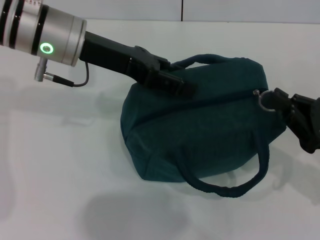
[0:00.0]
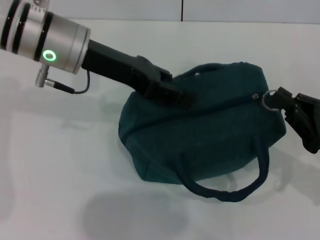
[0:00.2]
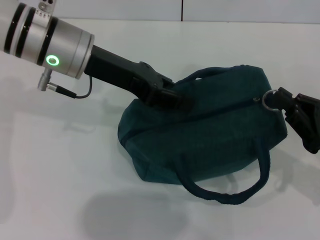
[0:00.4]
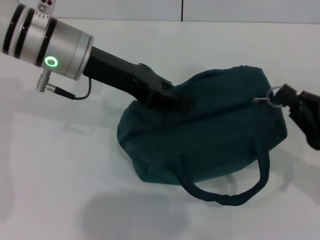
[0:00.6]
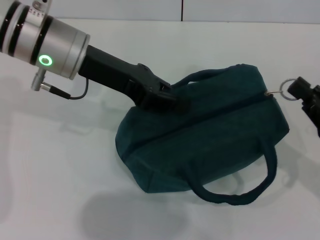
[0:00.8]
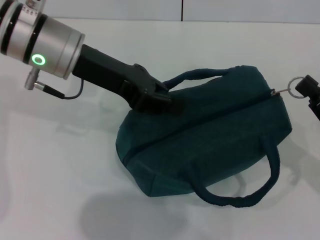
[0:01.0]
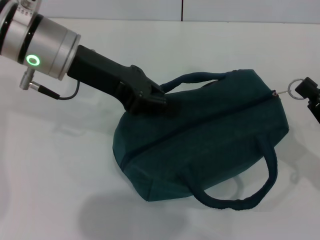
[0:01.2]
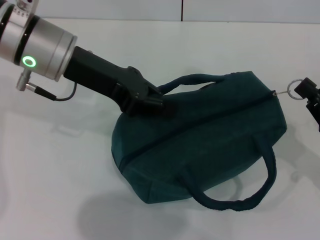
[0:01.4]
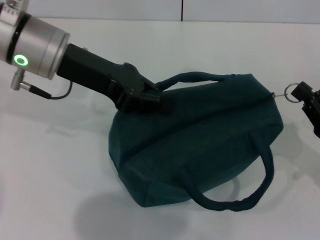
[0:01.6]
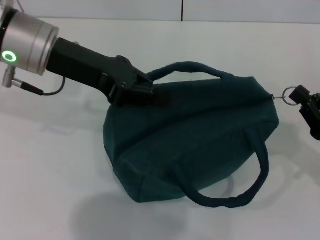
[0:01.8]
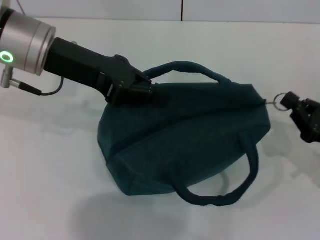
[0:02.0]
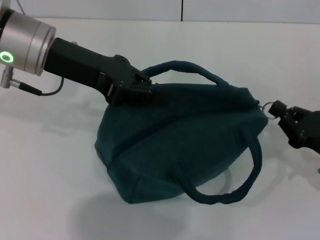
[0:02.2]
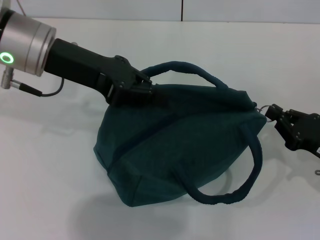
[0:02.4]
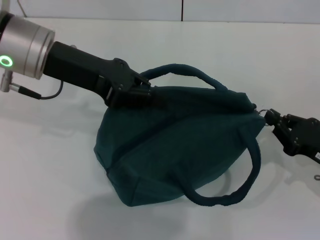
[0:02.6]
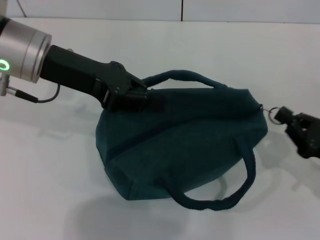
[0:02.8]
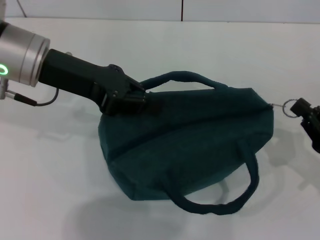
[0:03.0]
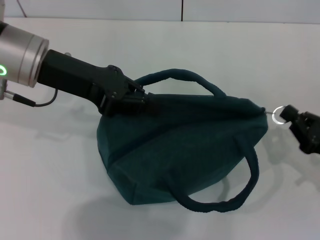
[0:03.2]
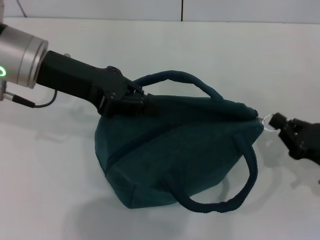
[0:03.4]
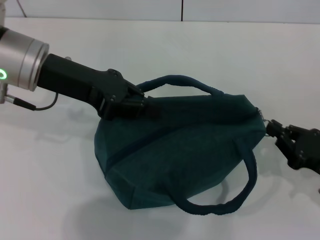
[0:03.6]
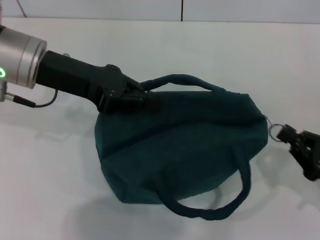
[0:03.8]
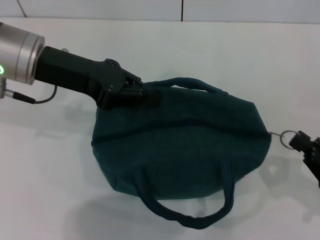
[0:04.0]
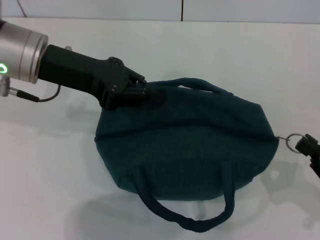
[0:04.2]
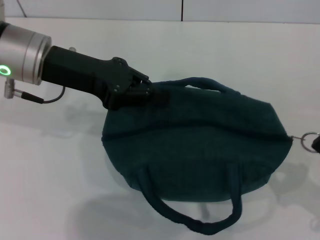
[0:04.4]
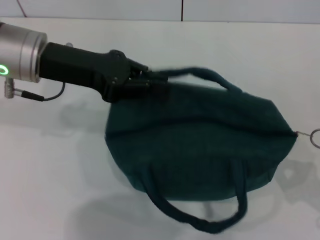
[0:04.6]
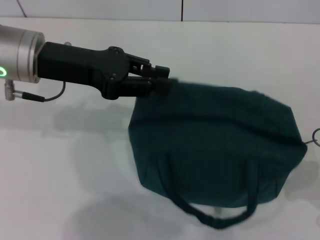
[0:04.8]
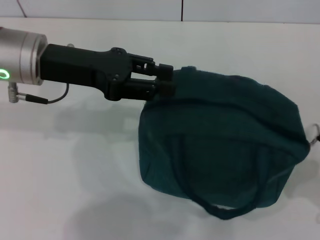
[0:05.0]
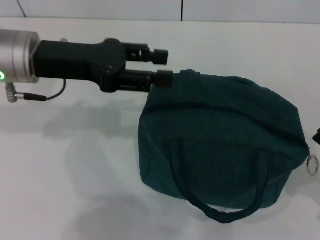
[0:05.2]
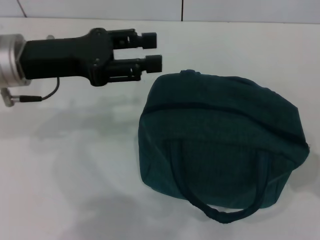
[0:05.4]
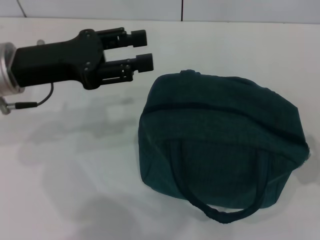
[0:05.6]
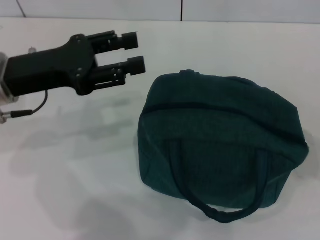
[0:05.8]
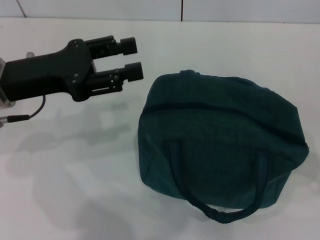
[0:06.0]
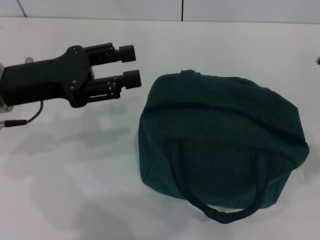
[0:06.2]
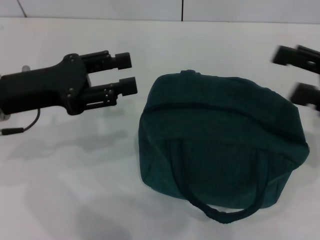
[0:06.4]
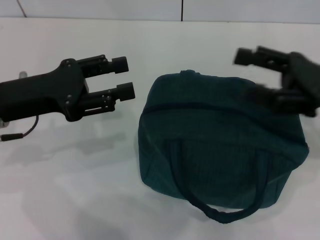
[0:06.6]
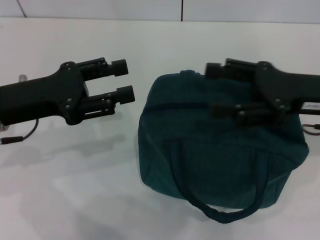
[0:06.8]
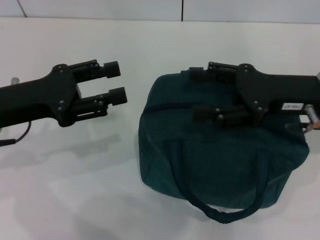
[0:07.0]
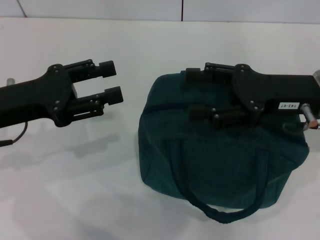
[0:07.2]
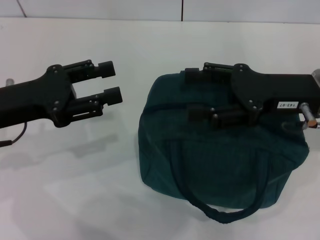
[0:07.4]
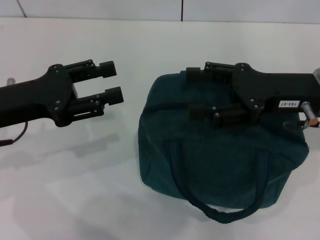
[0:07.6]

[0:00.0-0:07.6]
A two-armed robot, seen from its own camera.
Step, 0:00.0 to 0:05.0: Hold the lunch bag with your left hand.
0:00.0 to 0:01.6: The left gripper closes its fingers.
0:01.6 to 0:03.0: There are only small adjustments of the grippers.
0:03.0 to 0:04.6: The right gripper heads backward, covering roughly 5 cm.
0:04.6 to 0:06.0: The right gripper is displaced upward and forward by roughly 10 cm, and opens, while the left gripper ends up roughly 5 cm from where it was, and opens up.
0:06.0 to 0:07.6: The right gripper goes about 15 cm to the left and forward.
